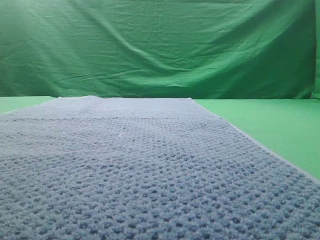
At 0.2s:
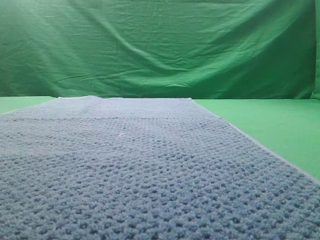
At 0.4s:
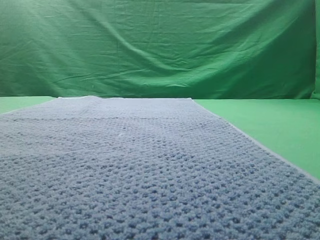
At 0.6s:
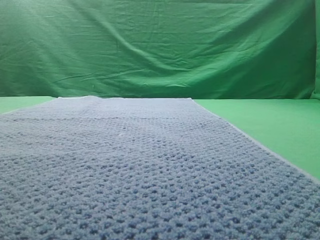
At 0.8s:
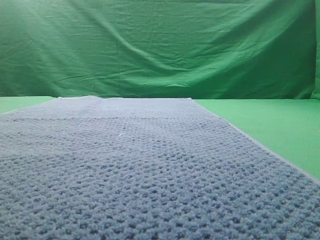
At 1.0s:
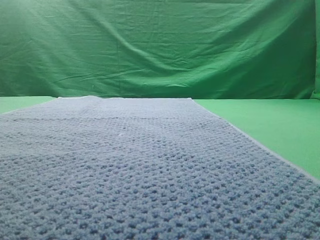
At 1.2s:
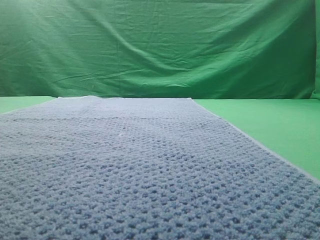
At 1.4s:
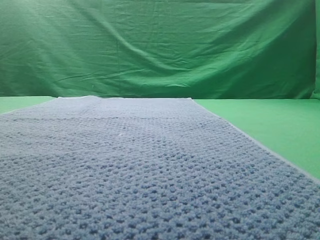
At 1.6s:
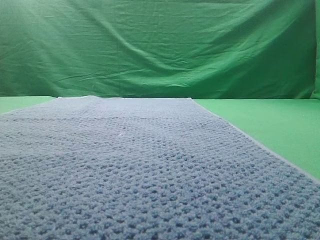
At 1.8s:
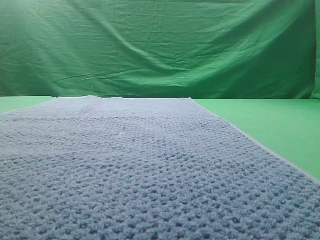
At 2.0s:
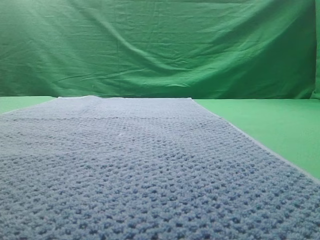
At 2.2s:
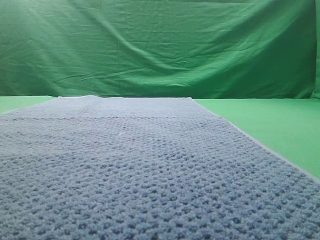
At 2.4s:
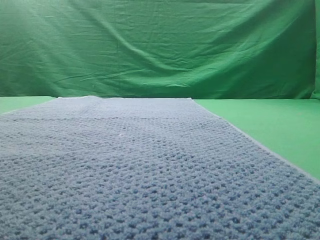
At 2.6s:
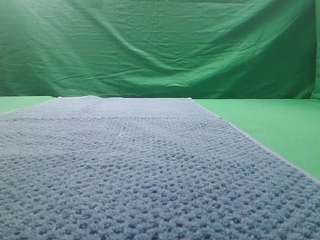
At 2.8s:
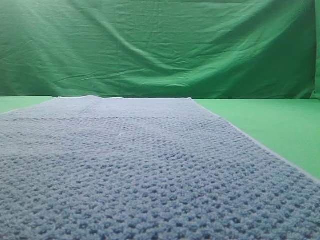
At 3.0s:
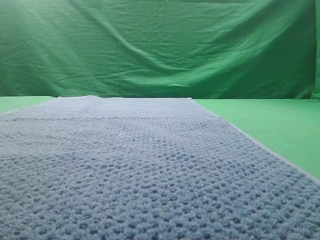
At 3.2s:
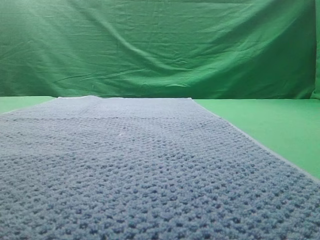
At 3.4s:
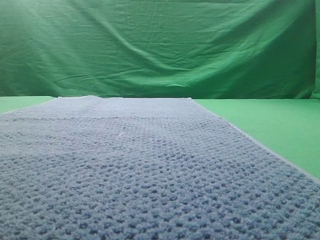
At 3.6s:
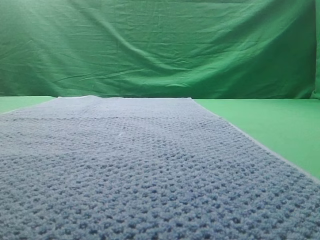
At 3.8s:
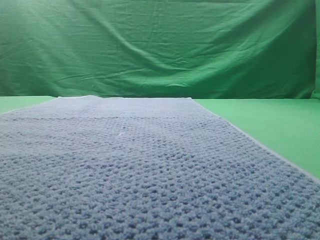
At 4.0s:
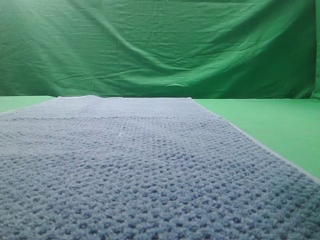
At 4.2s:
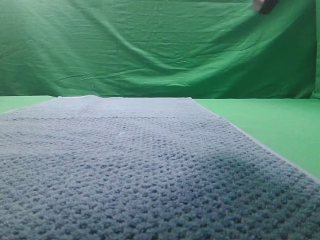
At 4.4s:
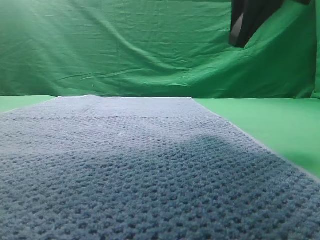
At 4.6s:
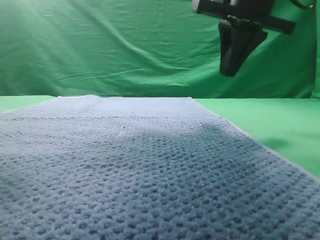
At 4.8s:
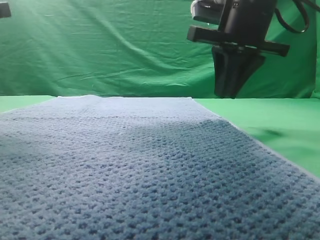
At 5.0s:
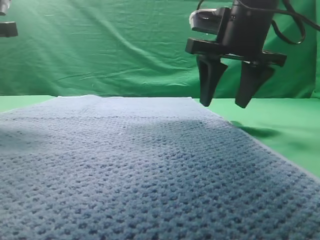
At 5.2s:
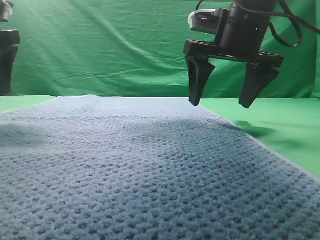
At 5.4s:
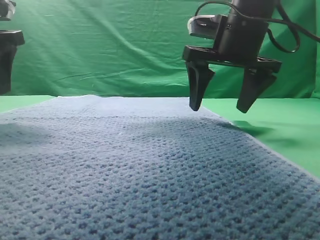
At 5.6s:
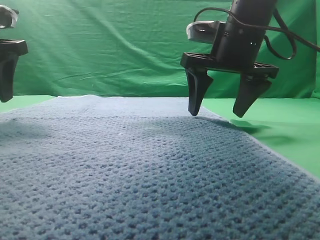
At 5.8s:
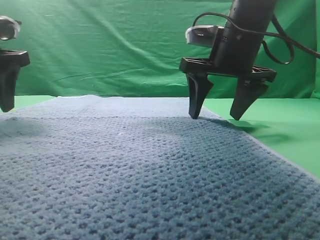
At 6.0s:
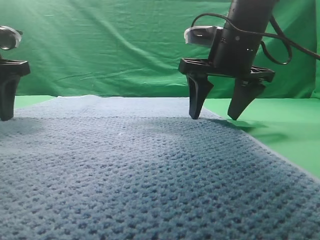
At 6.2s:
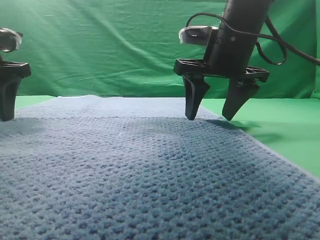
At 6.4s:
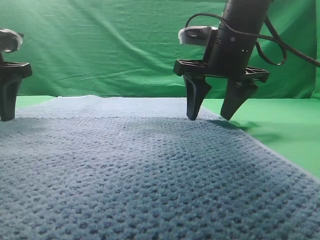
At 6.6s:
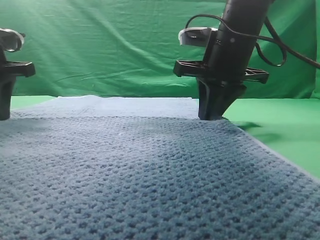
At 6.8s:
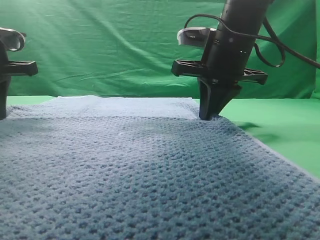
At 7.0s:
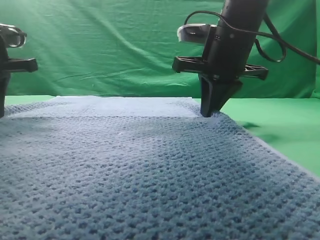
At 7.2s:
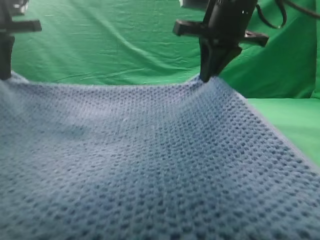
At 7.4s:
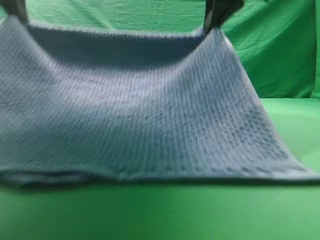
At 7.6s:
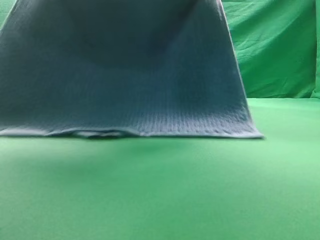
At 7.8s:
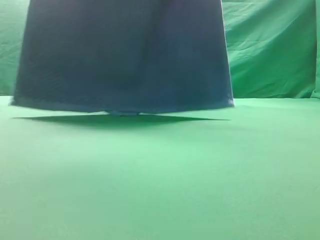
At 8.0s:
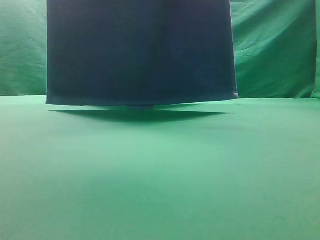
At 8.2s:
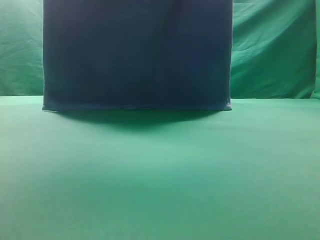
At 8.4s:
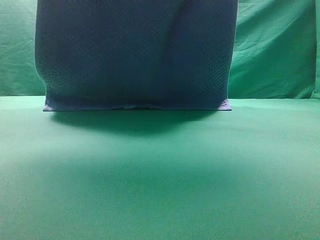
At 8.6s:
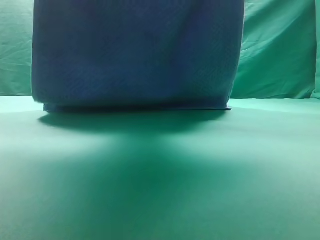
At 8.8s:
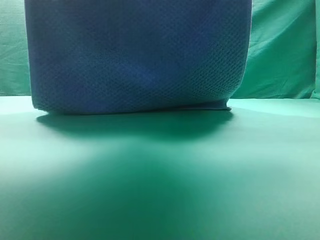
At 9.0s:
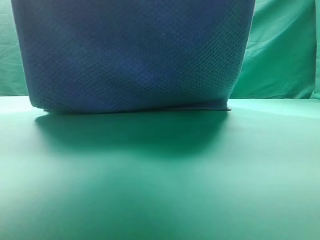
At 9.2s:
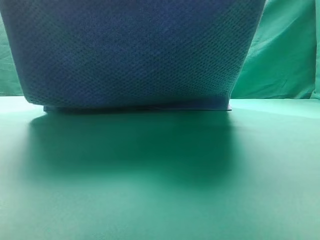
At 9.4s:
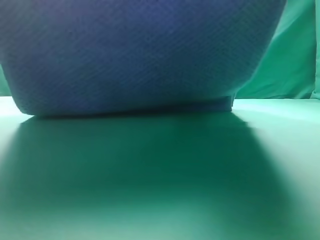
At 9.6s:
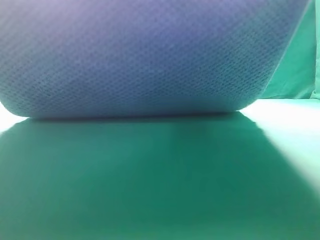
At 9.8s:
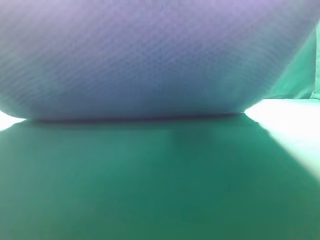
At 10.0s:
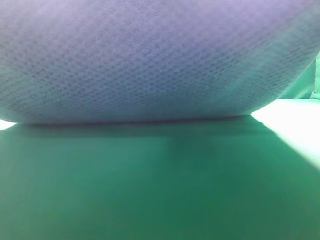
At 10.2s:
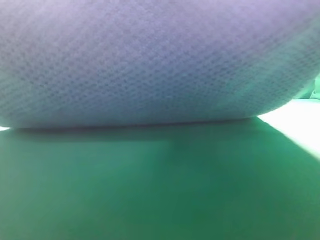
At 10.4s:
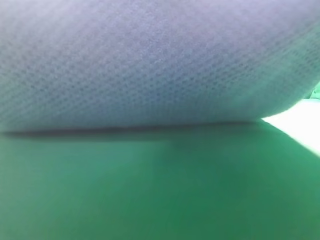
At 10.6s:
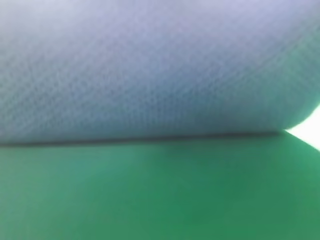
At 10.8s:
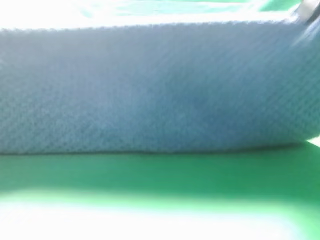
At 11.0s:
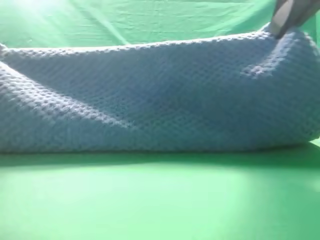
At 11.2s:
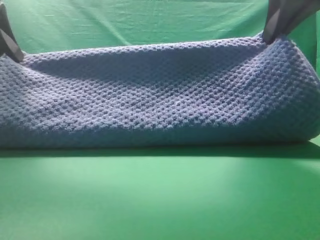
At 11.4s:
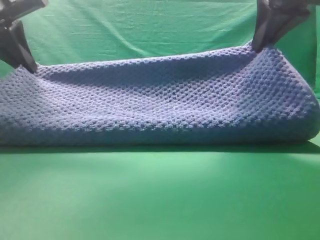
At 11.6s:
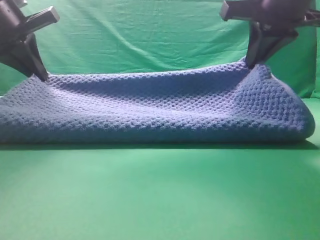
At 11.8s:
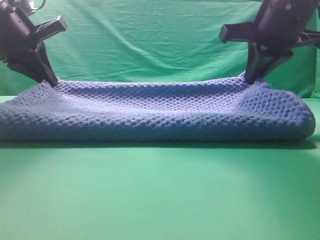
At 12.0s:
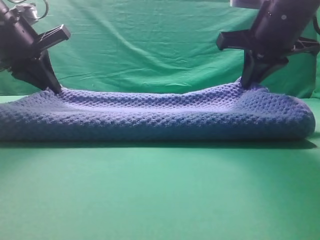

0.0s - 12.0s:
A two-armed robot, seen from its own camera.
Task of the whole recording: fold the towel on the table twice.
Step, 0.0s - 7.6s: pick up the towel with two arm.
